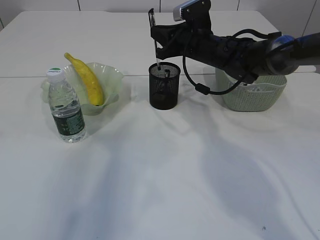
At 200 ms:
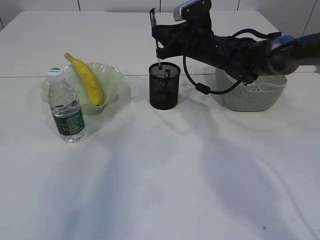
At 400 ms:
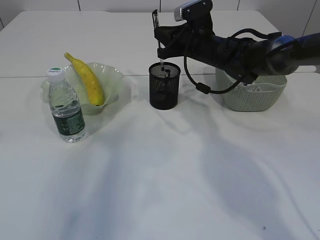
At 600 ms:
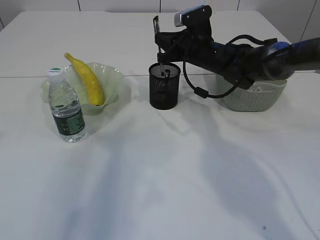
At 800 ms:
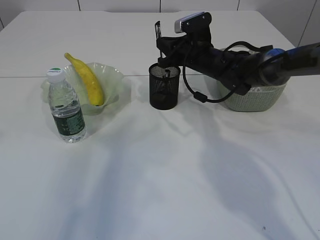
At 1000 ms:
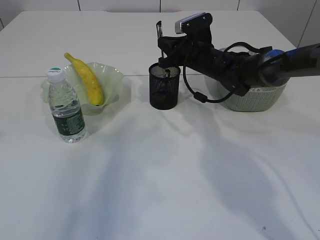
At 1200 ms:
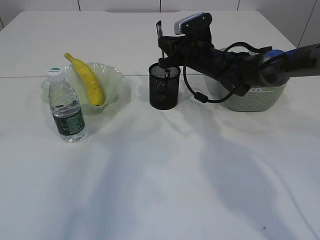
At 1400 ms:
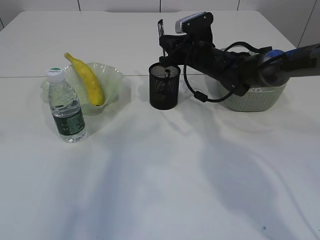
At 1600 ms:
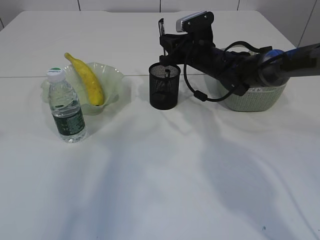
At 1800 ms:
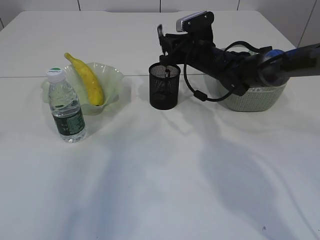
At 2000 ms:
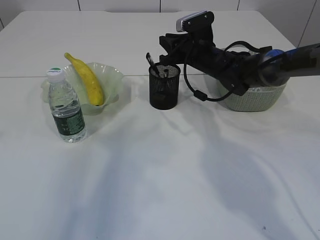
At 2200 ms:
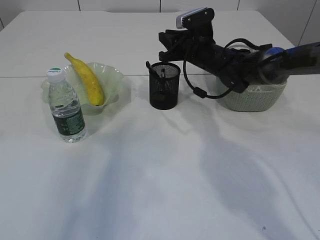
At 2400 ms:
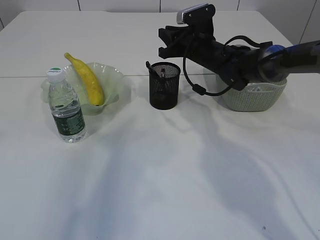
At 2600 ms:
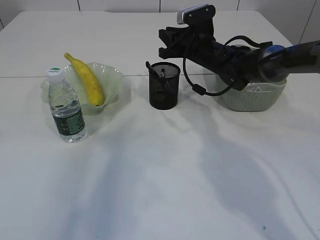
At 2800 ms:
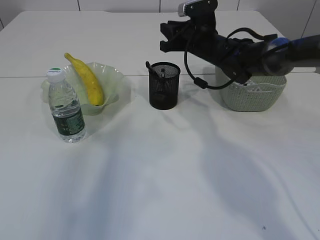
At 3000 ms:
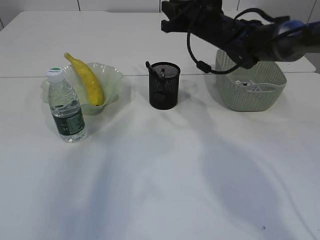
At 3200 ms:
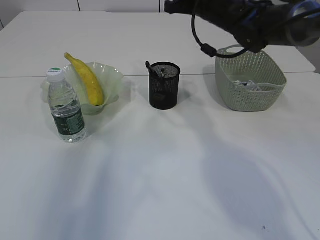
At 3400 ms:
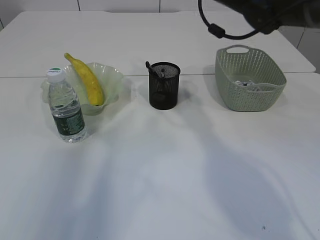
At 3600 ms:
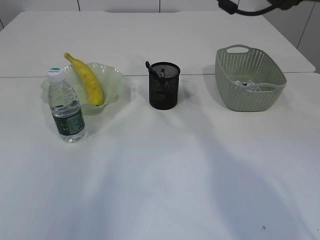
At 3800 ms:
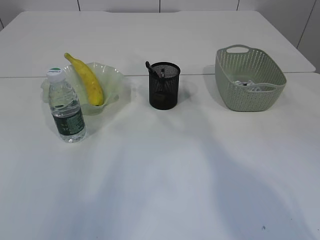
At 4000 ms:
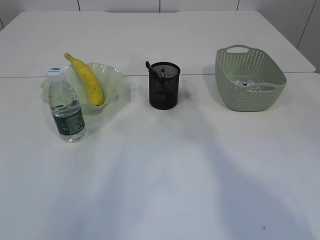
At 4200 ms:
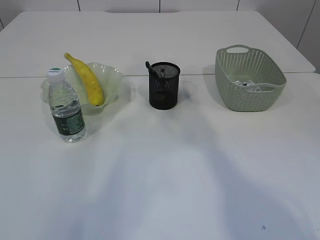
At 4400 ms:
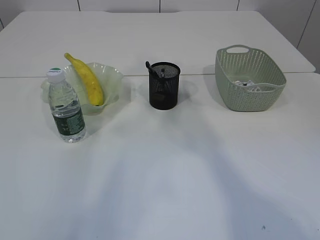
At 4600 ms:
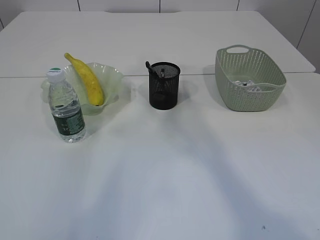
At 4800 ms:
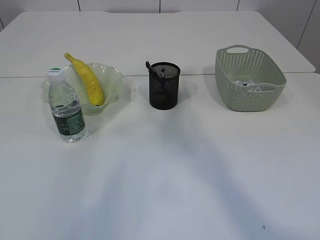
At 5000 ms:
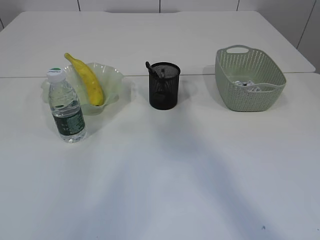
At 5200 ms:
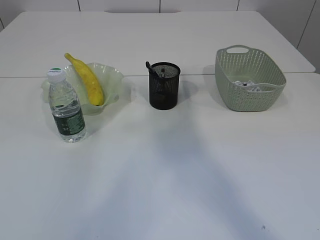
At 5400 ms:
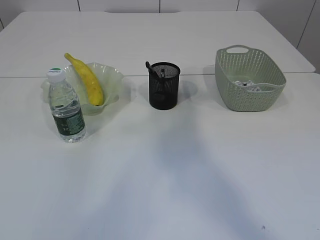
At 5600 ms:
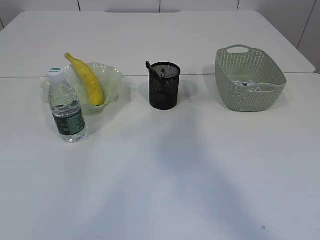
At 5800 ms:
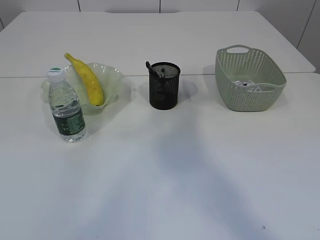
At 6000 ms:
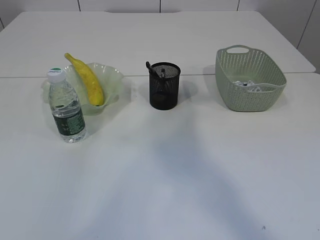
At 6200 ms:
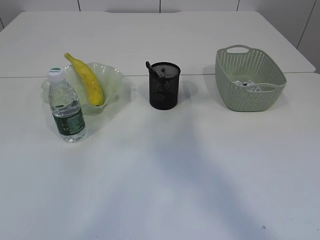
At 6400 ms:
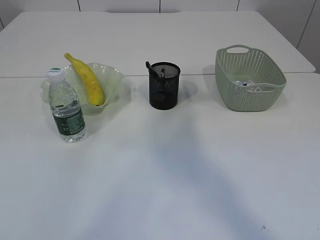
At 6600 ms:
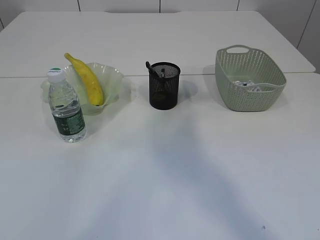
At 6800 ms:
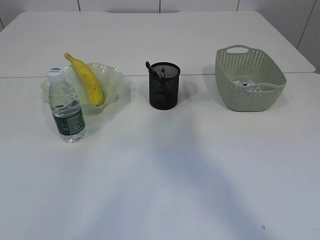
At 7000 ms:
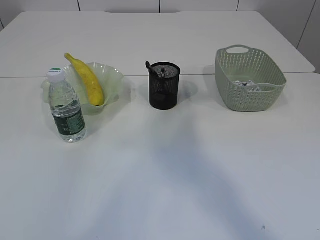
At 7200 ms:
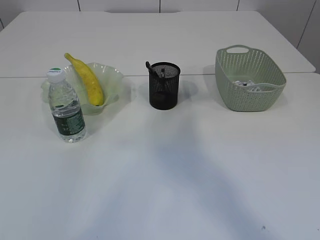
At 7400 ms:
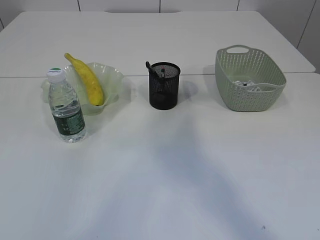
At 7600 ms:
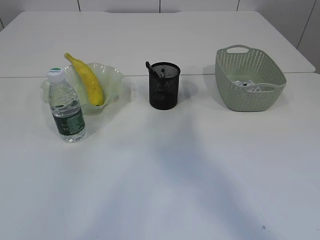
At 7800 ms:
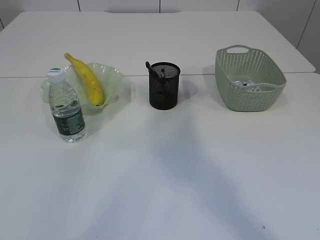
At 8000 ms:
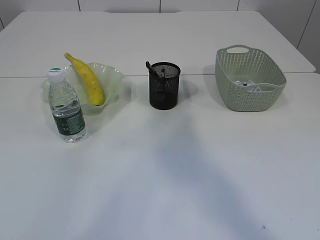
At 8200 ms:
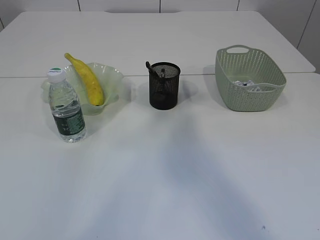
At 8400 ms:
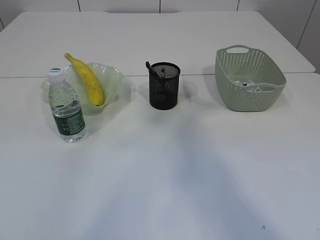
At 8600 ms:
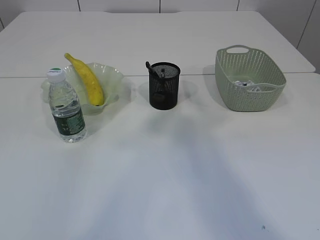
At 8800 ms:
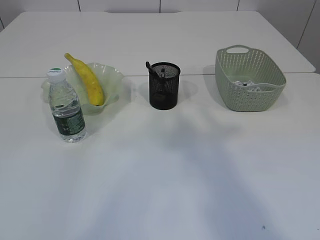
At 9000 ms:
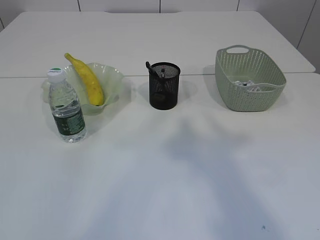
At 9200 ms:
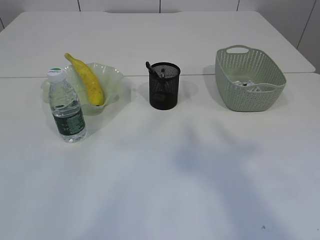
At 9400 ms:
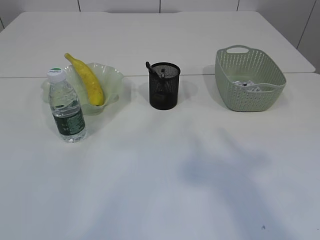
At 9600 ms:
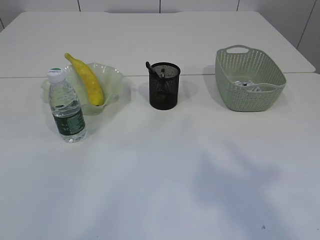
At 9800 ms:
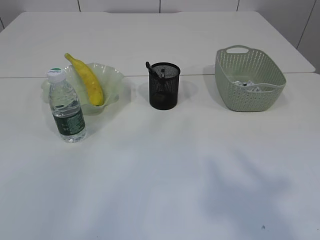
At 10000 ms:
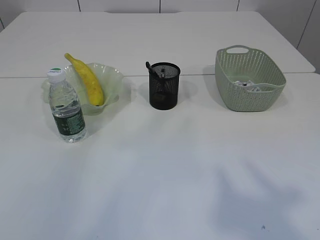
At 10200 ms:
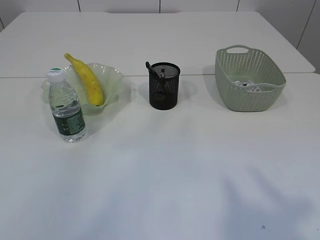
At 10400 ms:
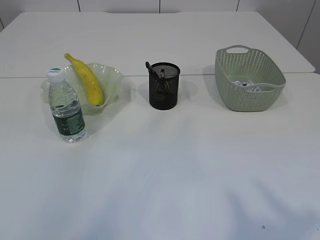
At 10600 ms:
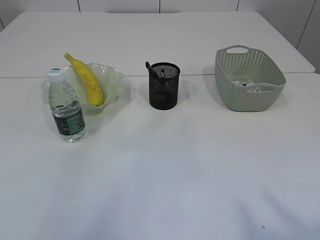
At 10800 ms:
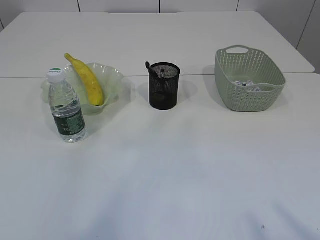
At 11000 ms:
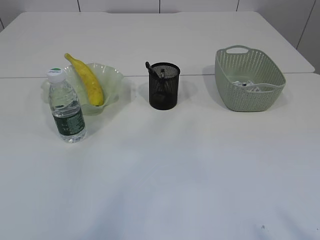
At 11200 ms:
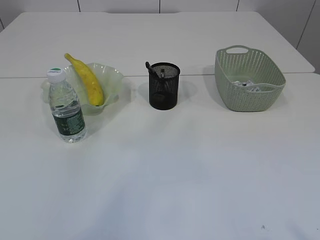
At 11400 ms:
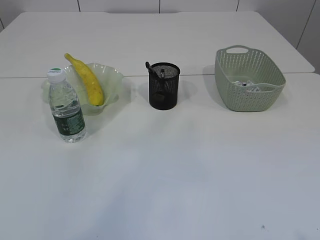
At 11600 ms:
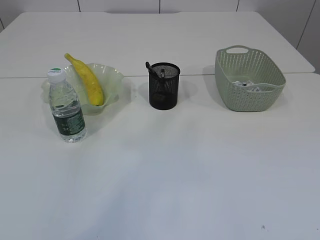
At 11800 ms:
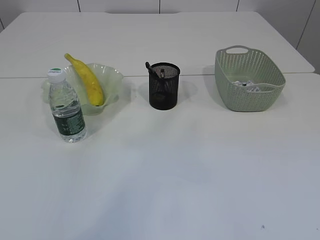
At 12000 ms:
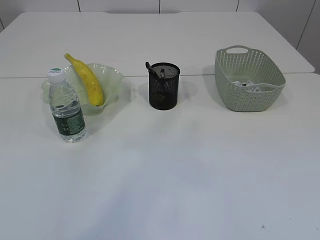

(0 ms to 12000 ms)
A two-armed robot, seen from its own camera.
Step, 0 ms - 2800 ms: Place the pen into the pen holder.
0 ms - 1600 ms: The grippers make only small movements.
1600 ms - 3000 ms: The right gripper moves upward, some 5 cm.
3000 ms - 4400 ms: The right gripper travels upward and backward by approximately 25 cm. Meanwhile the left gripper moves upward, approximately 5 cm.
4400 ms - 6000 ms: The left gripper goes roughly 10 cm upward and backward. Meanwhile the right gripper is displaced backward and upward by approximately 15 cm, and opens.

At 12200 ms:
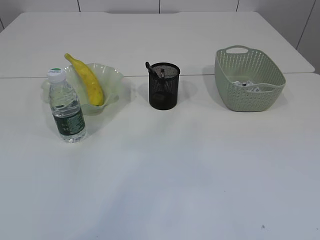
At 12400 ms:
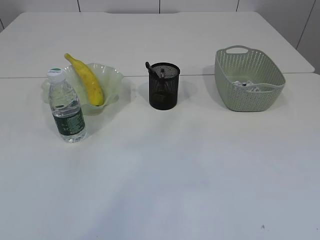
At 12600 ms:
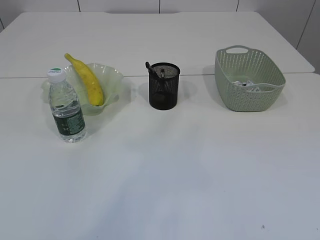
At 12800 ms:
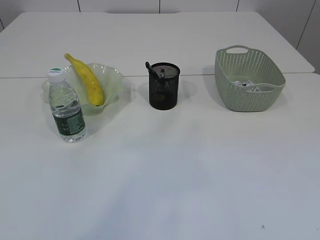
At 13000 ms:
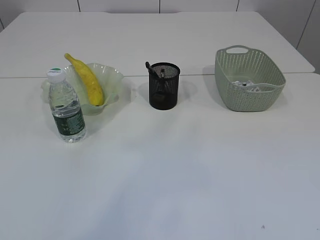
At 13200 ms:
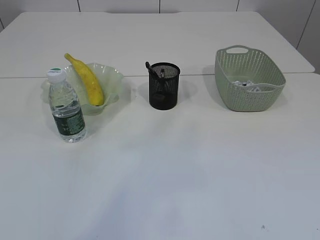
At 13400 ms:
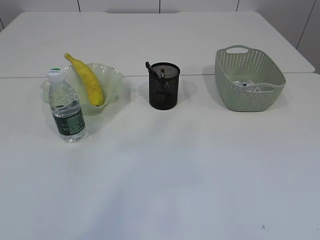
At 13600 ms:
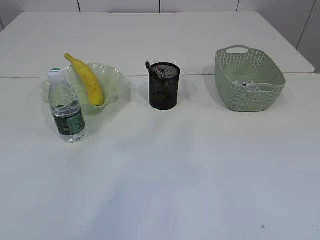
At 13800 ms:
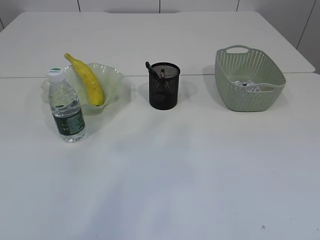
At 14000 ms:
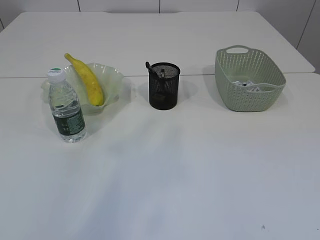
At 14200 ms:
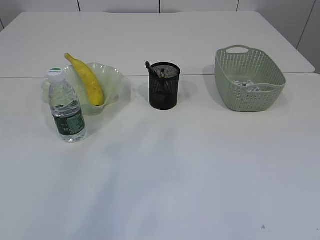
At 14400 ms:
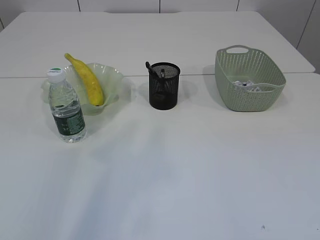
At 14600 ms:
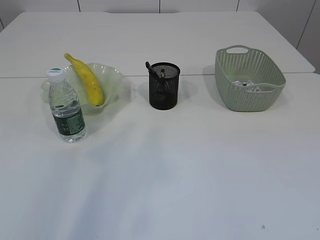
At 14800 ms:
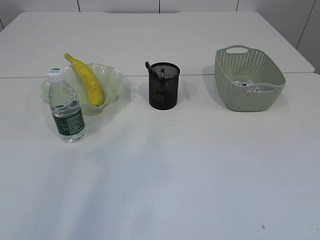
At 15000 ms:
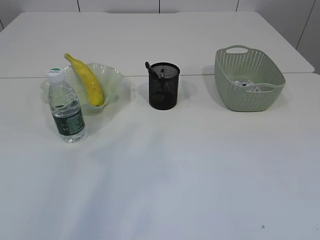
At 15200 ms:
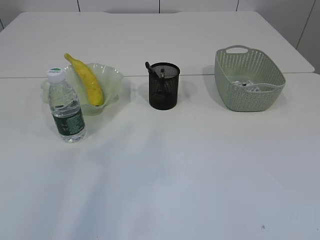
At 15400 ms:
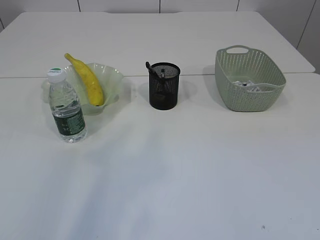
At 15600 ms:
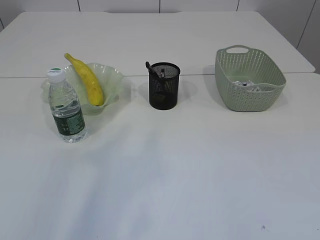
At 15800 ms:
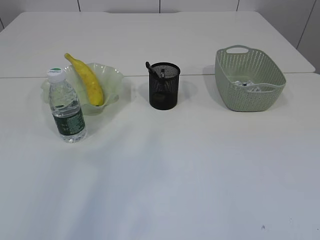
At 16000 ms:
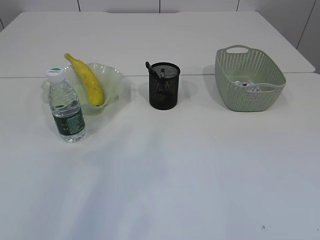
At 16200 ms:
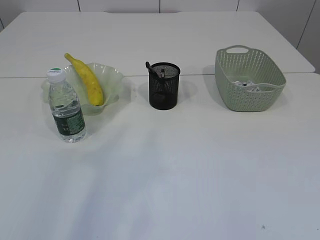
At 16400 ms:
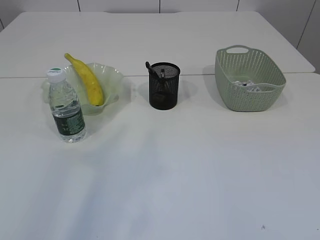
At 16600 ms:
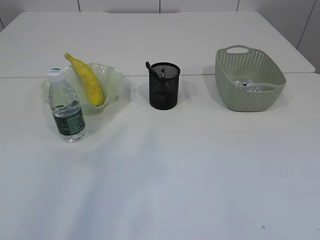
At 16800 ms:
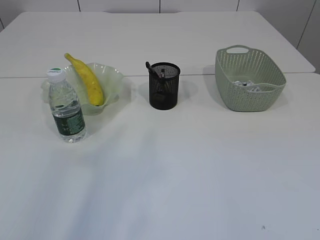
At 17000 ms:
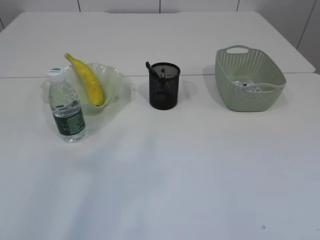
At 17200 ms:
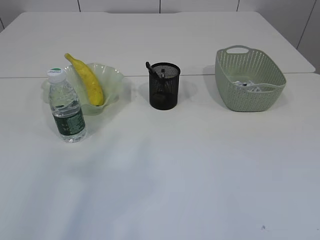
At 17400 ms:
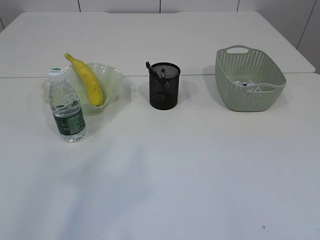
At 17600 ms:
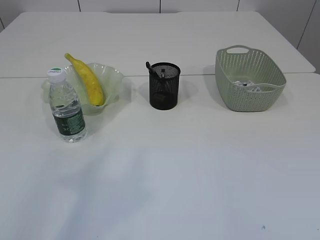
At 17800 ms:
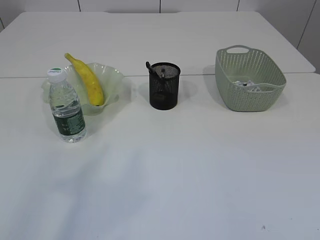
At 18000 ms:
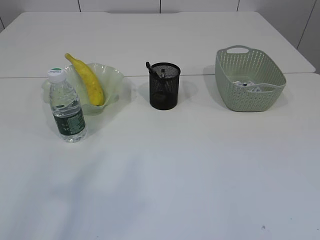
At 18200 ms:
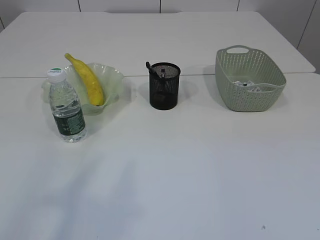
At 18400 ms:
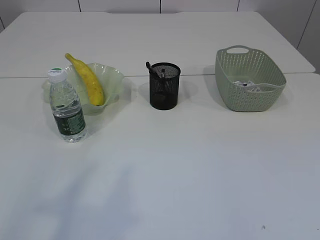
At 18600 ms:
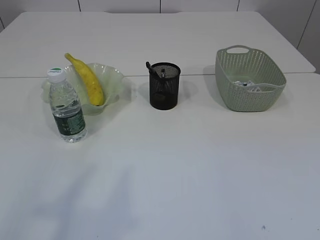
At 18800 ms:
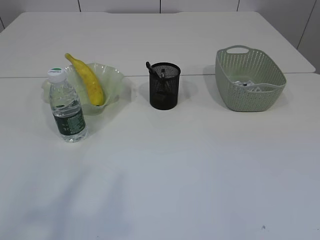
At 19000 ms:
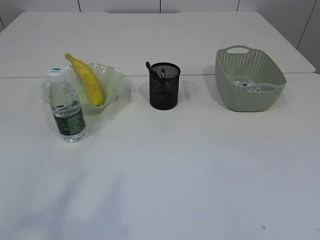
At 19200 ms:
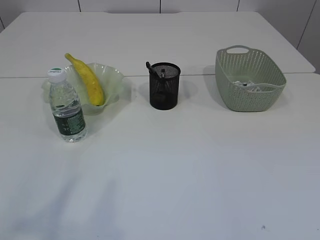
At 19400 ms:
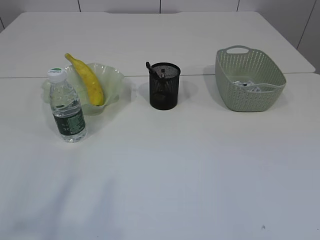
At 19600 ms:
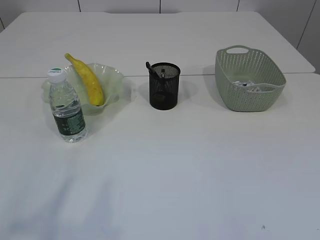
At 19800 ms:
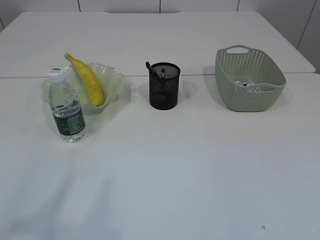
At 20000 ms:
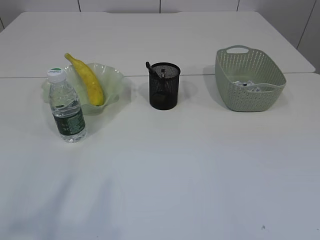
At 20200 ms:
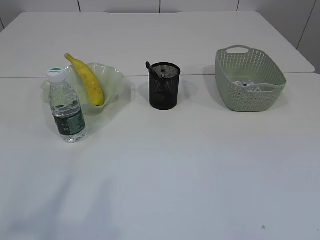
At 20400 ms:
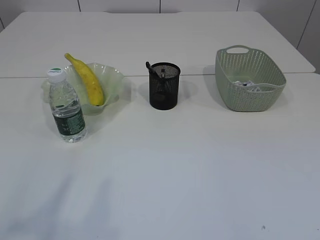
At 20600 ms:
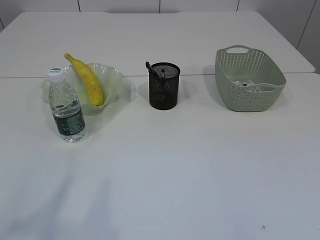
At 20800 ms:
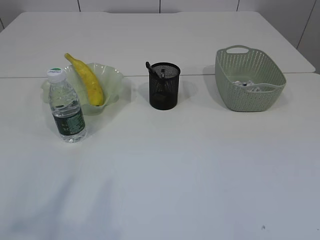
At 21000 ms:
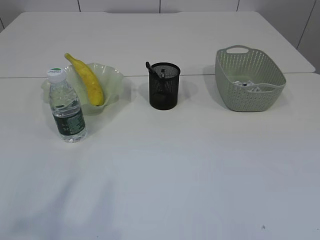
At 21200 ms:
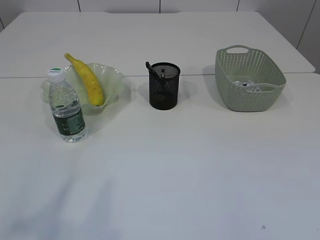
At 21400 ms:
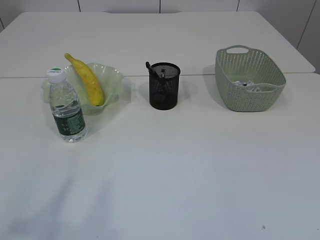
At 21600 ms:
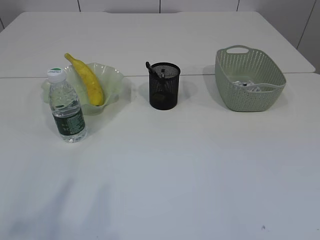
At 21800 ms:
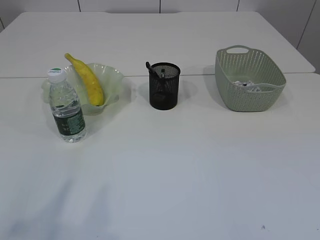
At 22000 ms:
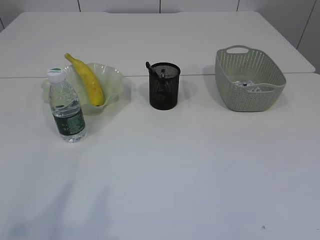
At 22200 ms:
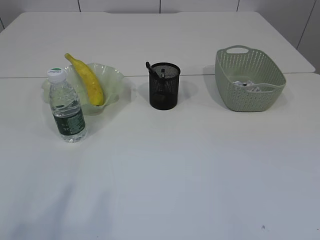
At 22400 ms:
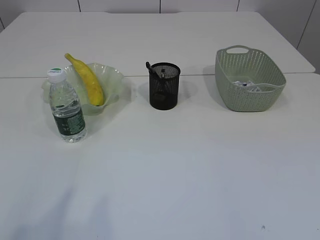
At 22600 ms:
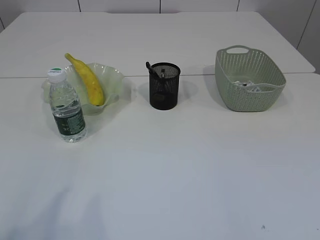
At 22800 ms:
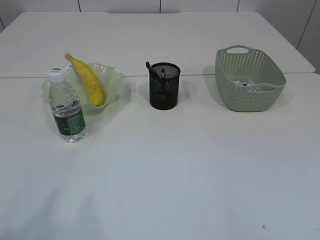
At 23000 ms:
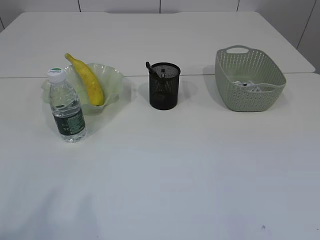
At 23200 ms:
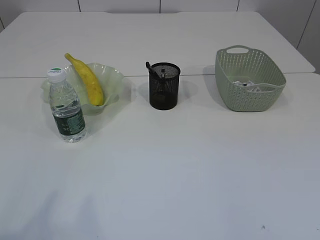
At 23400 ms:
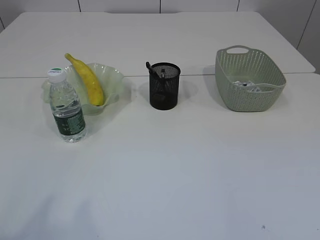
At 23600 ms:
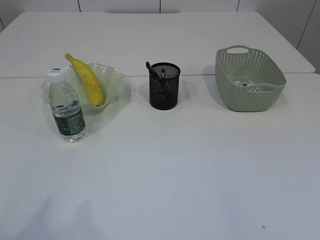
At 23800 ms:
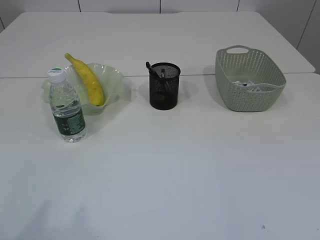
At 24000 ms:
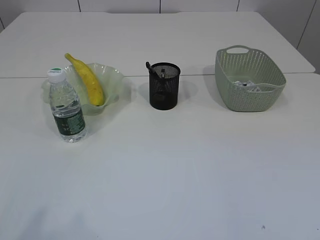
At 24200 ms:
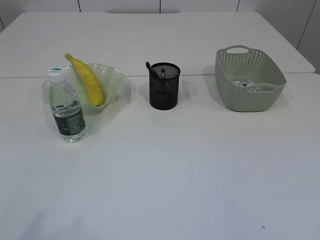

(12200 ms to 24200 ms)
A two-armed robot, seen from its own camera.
19800 ms - 21200 ms: Both grippers stay put.
